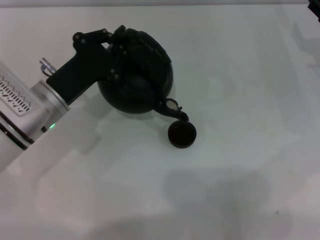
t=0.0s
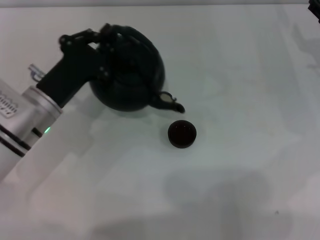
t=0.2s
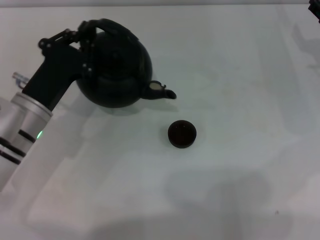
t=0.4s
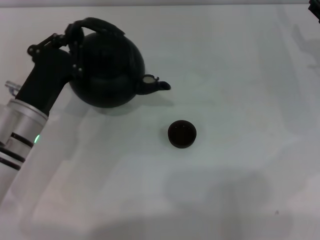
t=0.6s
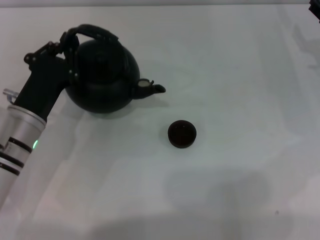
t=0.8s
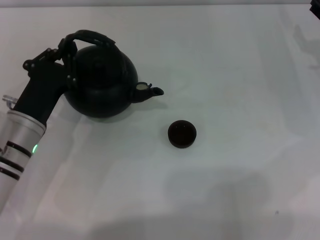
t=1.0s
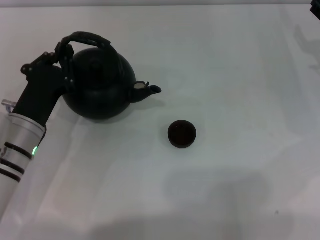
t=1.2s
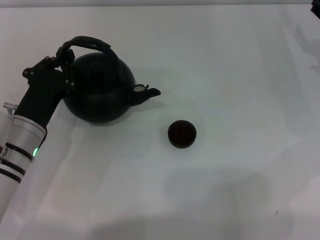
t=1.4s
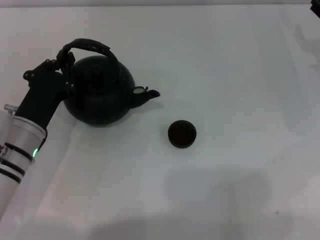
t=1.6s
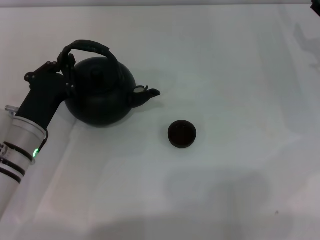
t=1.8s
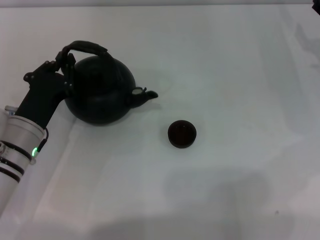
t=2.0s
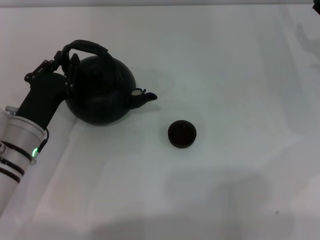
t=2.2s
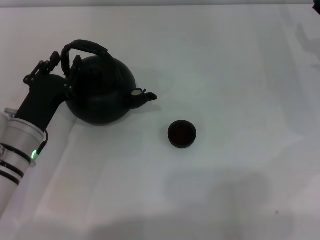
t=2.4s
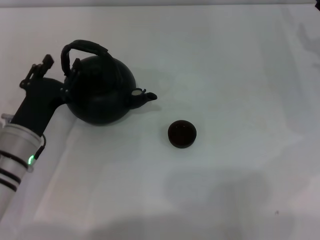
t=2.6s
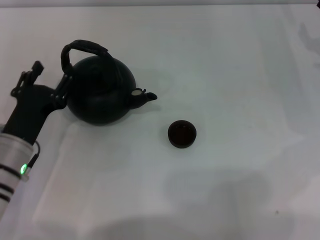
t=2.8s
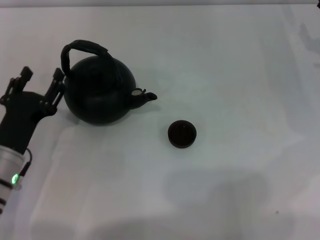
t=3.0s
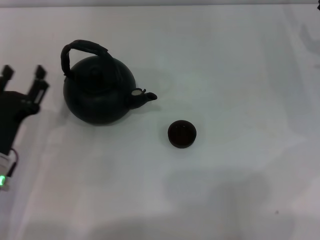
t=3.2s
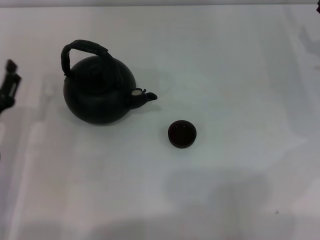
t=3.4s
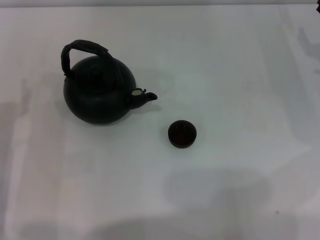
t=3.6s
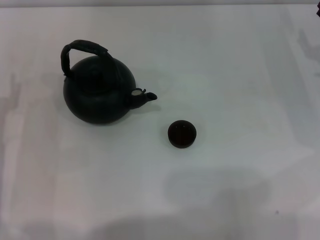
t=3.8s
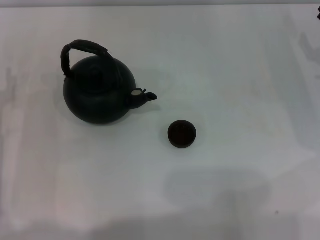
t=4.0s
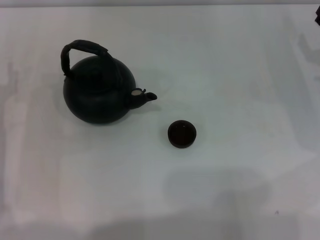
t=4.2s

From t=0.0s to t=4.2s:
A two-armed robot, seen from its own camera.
Task of the whole recording: Grasp the handle of the teapot with one hand and pour tea into the teacup.
Step, from t=0.2s to t=3.0s: Put down the teapot with the left gripper.
From t=0.0s to t=1.4s: The left gripper changes place by some 5 cm.
From t=1.4s to t=2.8s: The left gripper opens.
From t=2.8s to t=4.2s: The left gripper moves to the left, roughly 5 cm.

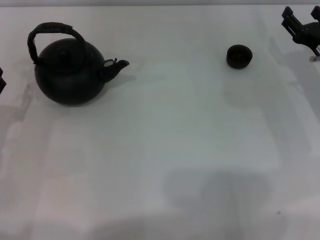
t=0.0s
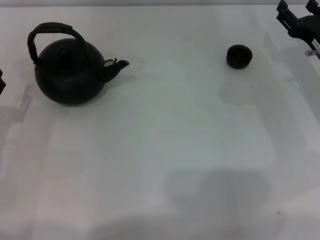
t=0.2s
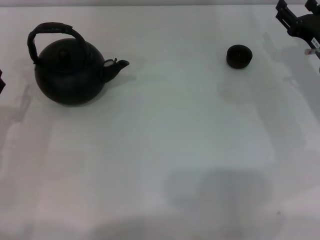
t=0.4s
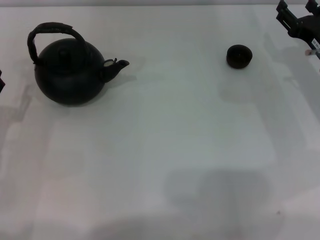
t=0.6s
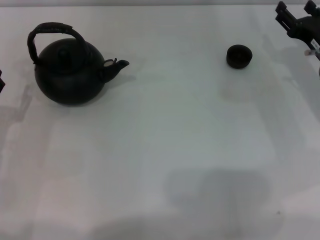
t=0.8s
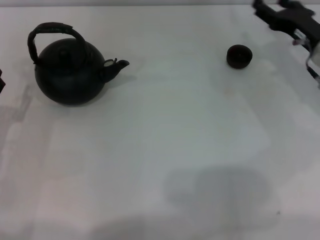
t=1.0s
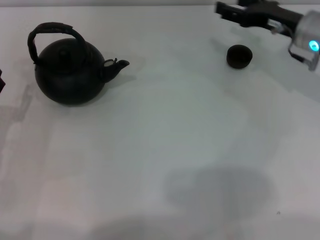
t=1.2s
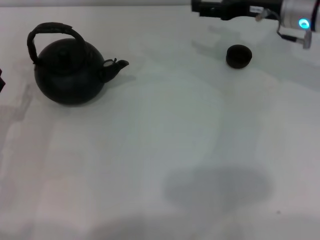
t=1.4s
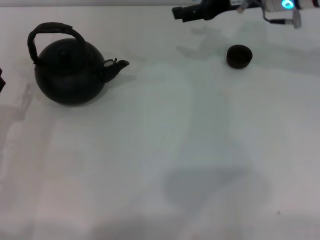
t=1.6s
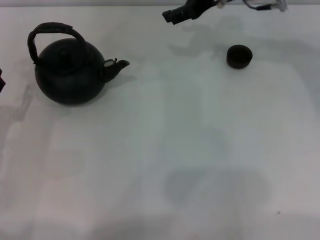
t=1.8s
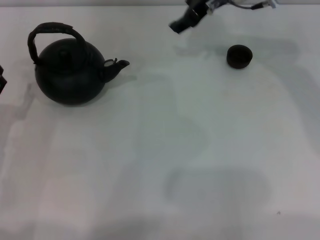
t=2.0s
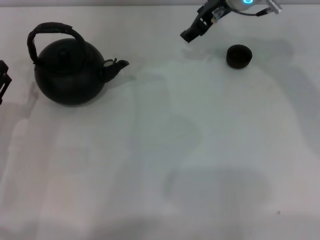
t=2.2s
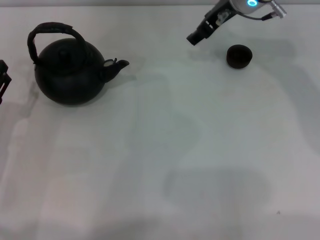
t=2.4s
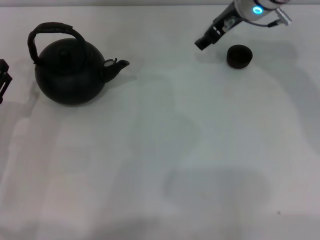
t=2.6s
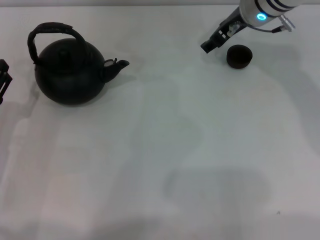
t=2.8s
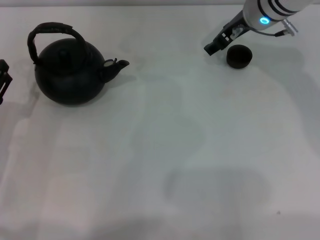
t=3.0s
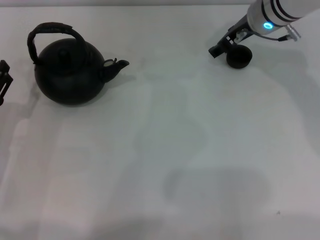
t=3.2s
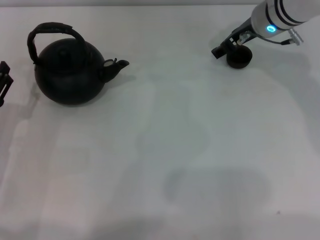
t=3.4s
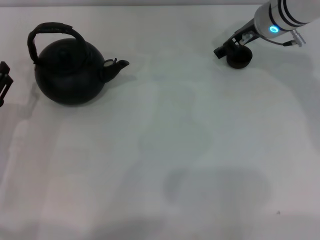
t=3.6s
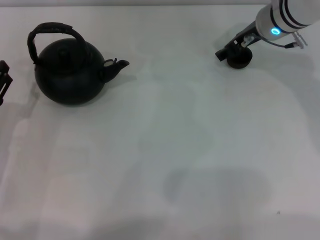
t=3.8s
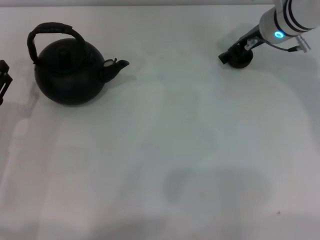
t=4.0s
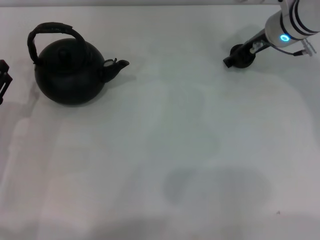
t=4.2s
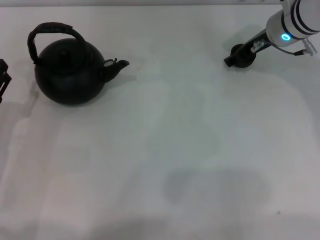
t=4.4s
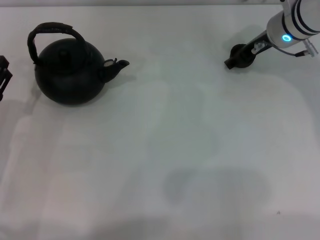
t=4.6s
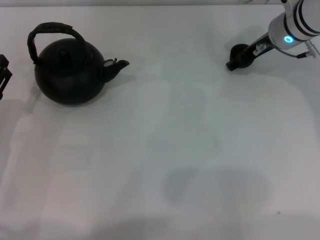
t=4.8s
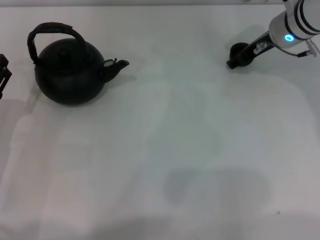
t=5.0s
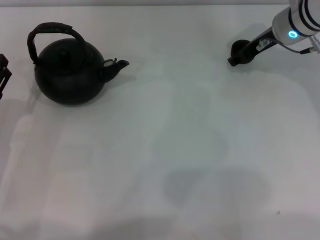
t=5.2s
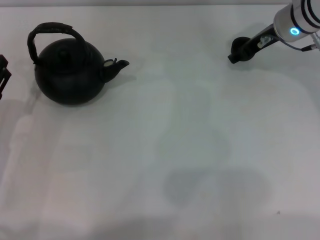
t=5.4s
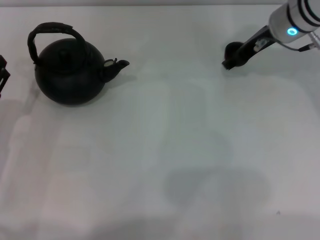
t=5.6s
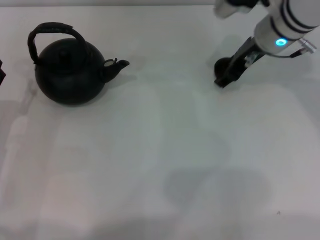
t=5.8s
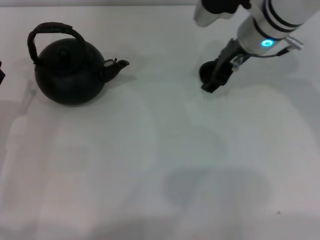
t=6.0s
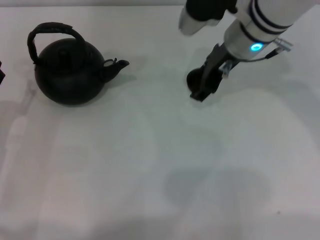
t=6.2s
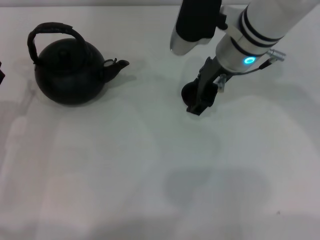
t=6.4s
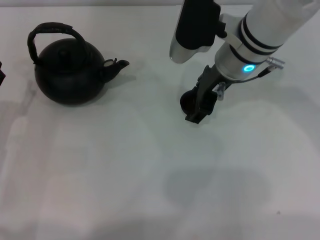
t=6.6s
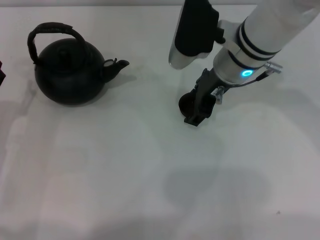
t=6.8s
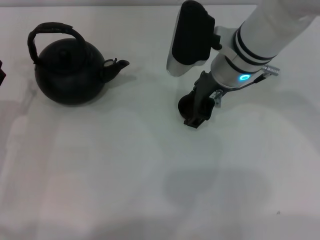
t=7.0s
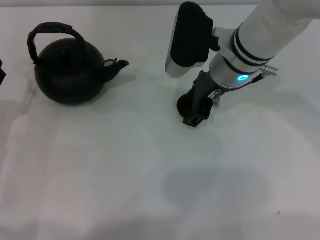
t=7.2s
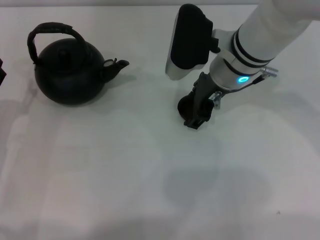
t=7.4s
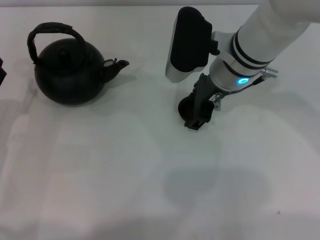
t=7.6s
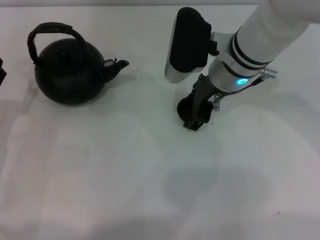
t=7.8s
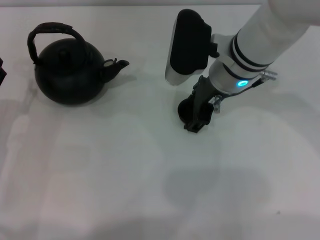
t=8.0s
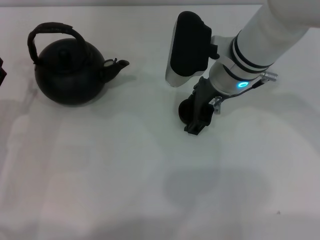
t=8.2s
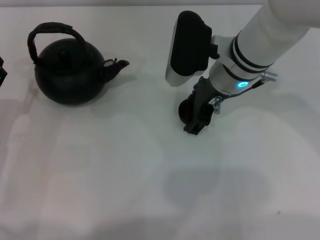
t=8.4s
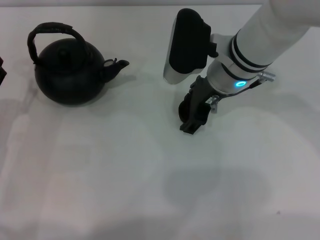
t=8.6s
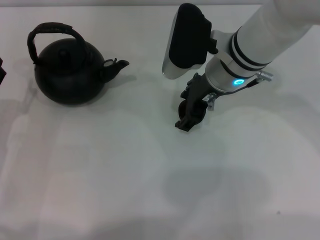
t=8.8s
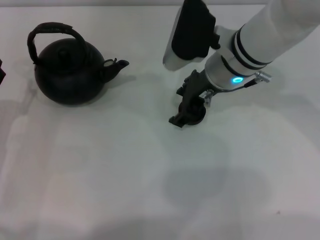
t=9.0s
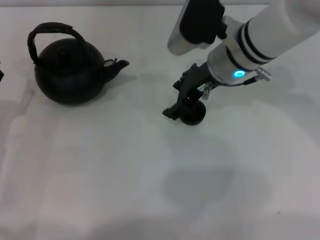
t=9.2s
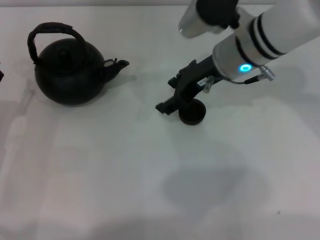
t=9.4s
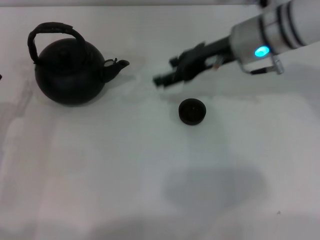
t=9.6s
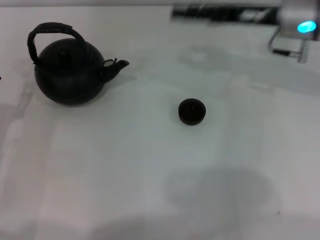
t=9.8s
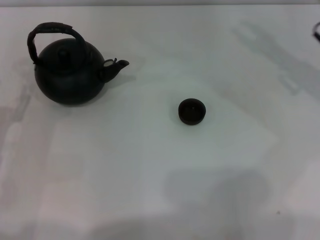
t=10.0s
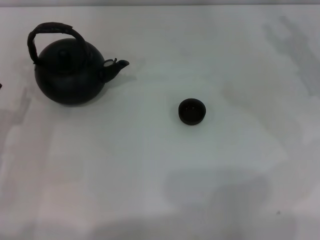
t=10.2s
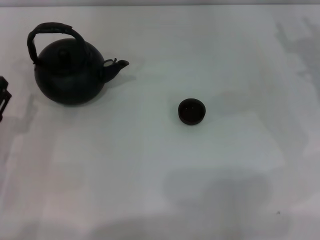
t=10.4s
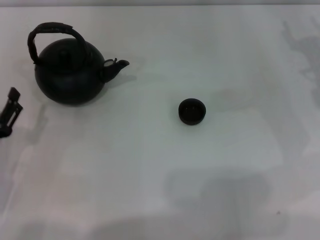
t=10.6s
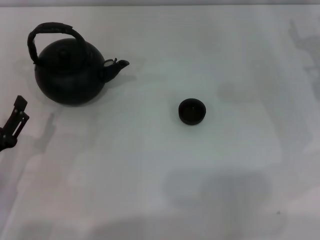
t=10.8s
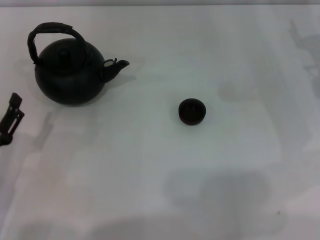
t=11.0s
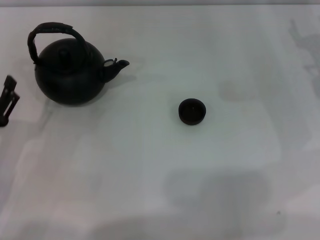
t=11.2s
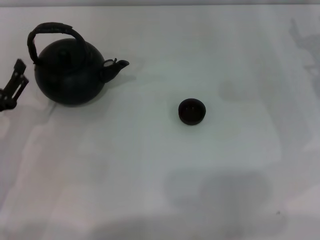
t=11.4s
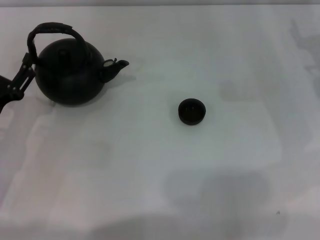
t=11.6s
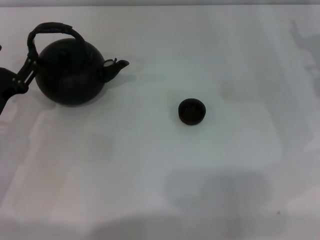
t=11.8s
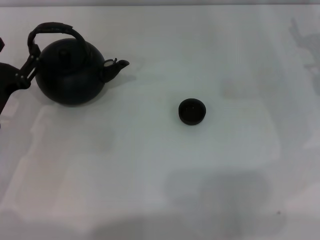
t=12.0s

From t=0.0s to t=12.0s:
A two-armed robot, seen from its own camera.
Task of the whole recording: Grasp the handle of the teapot with one hand and pour tea into the teacup.
Step, from t=0.0s to t=5.6s: Pick up the teacup with the right gripper.
Step, from t=5.8s to t=9.0s: Place the teacup in the center of view with the right gripper.
From t=0.0s to t=1.6s: The right gripper travels upward, forward and to the left by some 20 cm.
From t=3.0s to t=4.4s: The grippers move only a little.
From t=4.4s to t=6.0s: The right gripper heads to the left, covering roughly 5 cm.
From t=6.0s to t=7.6s: The right gripper ends up approximately 5 cm from where it was.
From t=7.6s to t=9.0s: The grippers make only small movements.
From t=9.0s to t=10.4s: The right gripper is displaced to the right by about 20 cm.
From t=10.4s to t=12.0s: The left gripper goes about 5 cm forward.

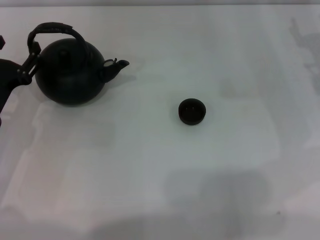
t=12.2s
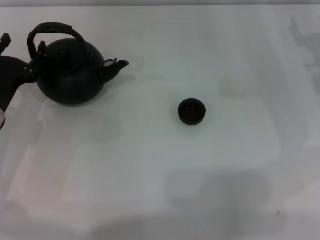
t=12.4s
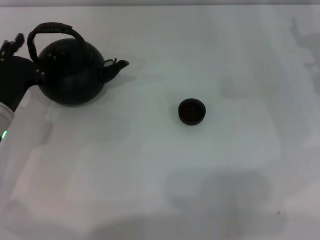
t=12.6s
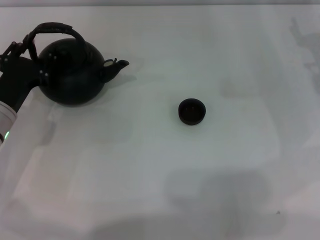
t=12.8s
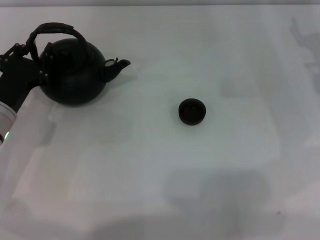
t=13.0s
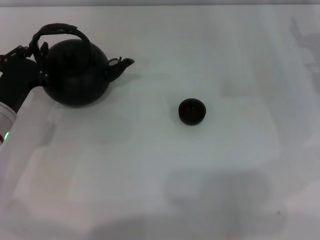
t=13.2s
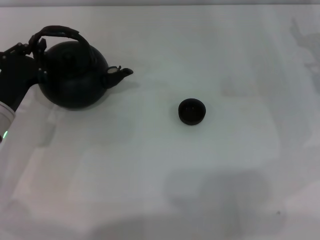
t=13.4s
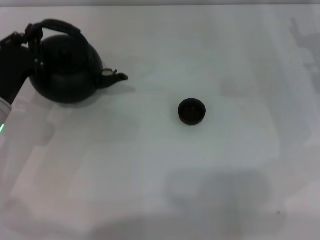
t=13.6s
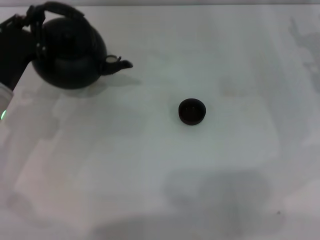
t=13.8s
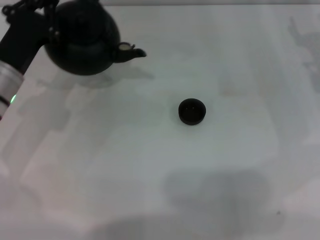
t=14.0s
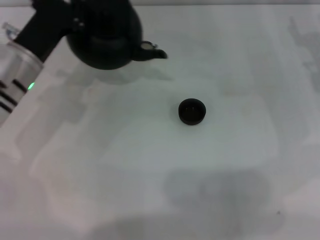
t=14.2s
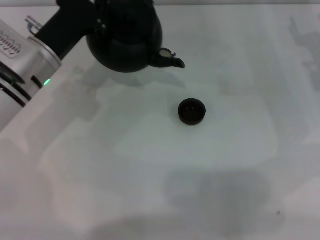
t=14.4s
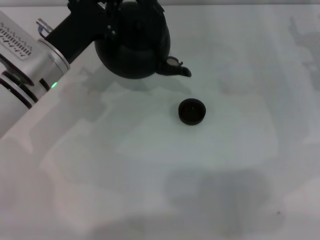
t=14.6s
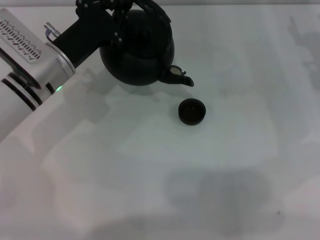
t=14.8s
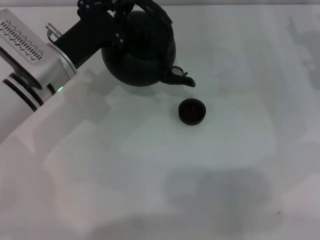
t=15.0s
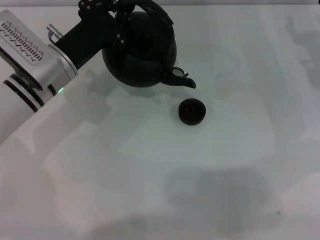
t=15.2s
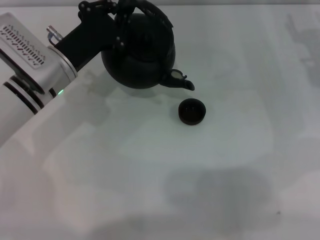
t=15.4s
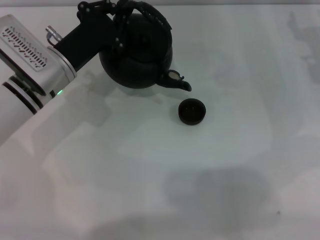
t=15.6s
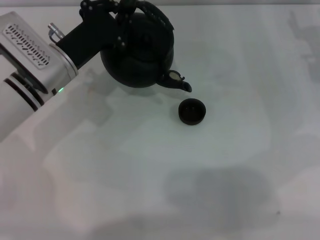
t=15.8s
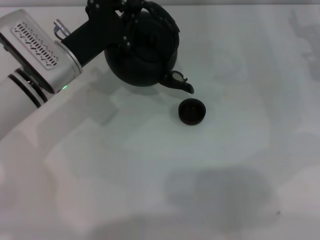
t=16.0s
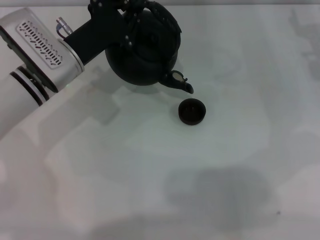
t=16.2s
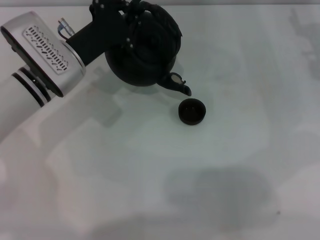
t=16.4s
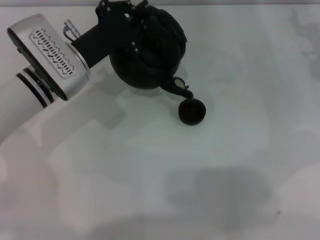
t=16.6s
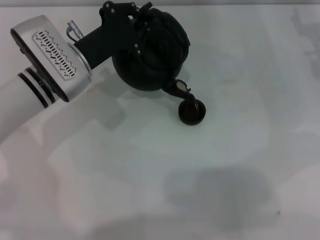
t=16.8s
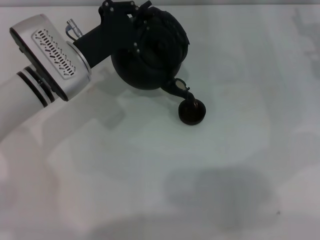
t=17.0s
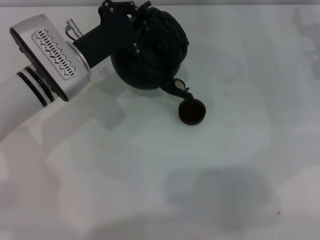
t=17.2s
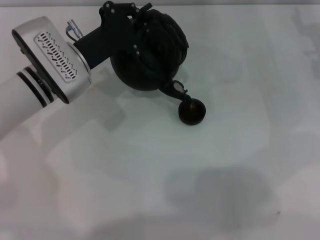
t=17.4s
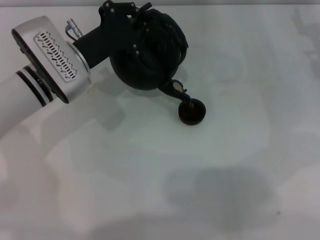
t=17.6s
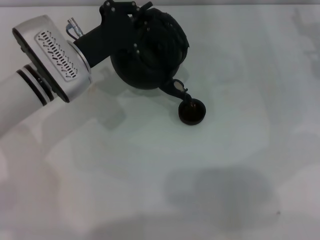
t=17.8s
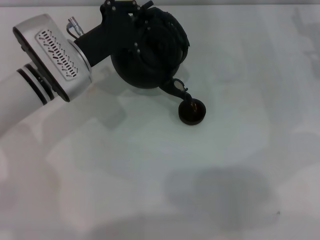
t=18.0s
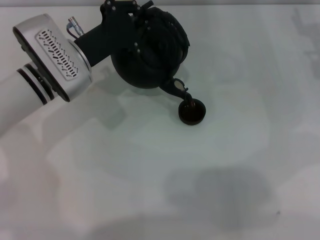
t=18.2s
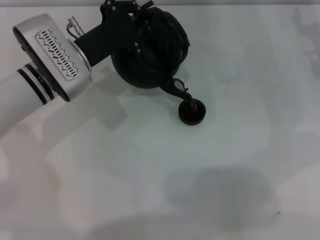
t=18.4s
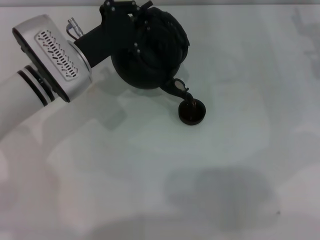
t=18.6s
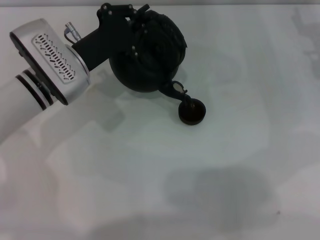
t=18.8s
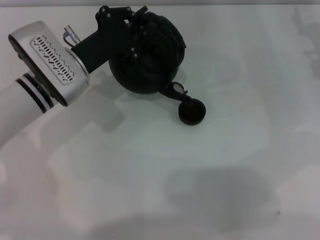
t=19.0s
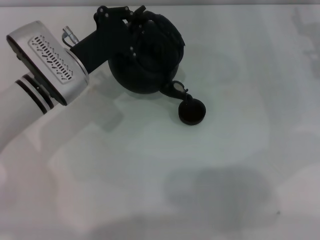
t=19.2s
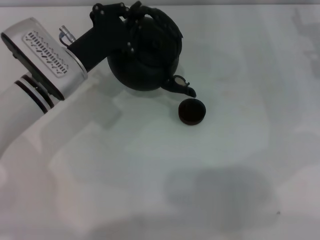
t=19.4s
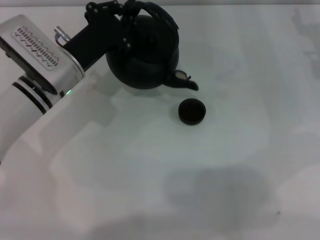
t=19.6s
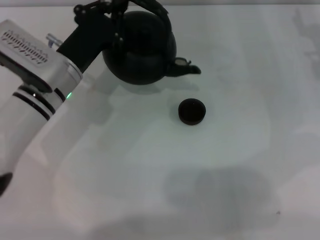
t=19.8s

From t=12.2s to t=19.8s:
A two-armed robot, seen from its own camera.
Task of the whole recording: Grasp the handle of the teapot with one hand and pour tea into the teacup.
Step, from t=14.2s to t=19.6s: Pour tea into the teacup with the left gripper.
From t=12.2s to t=13.8s: The left gripper closes up.
From t=13.8s to t=15.2s: The left gripper shifts roughly 10 cm to the right.
From t=15.2s to t=16.8s: The grippers move only a little.
From t=16.8s to t=18.2s: The two grippers keep their place.
